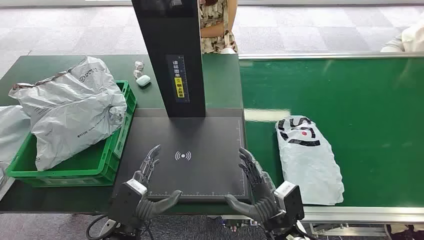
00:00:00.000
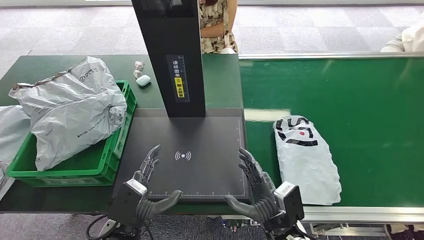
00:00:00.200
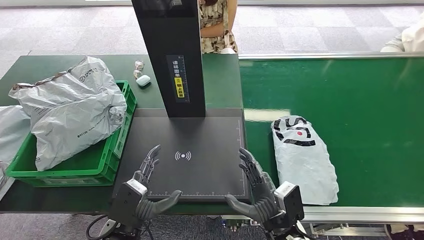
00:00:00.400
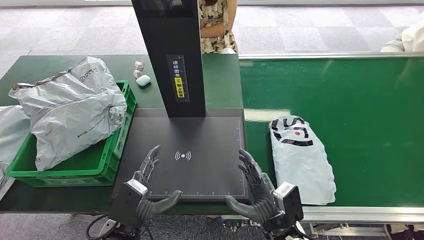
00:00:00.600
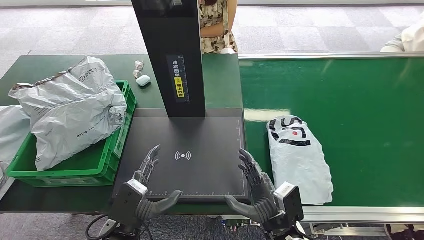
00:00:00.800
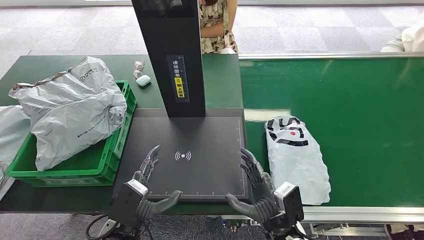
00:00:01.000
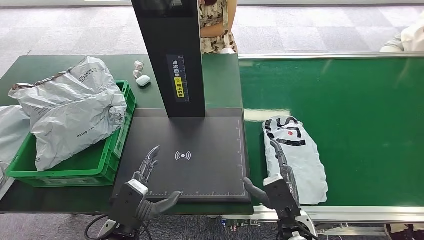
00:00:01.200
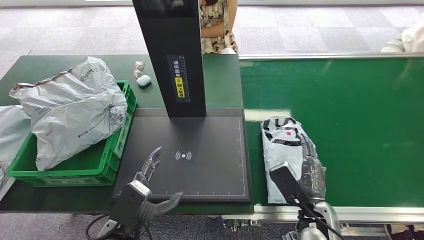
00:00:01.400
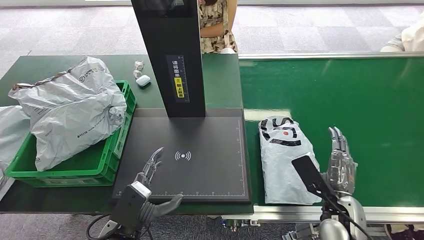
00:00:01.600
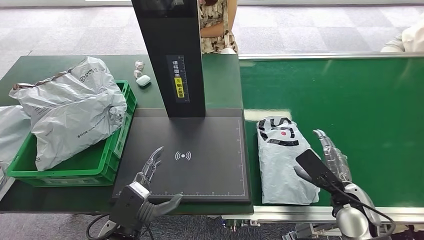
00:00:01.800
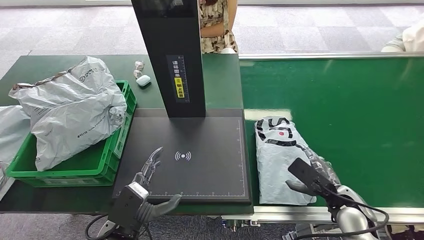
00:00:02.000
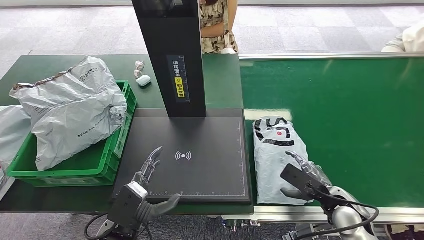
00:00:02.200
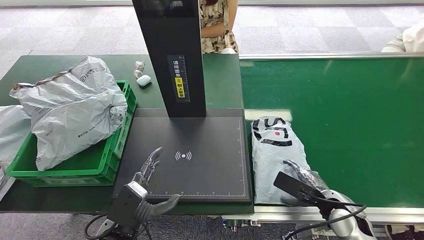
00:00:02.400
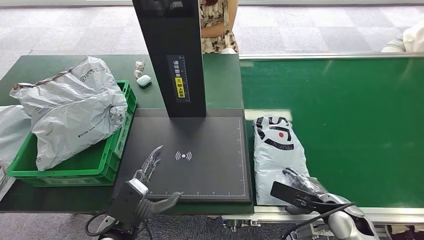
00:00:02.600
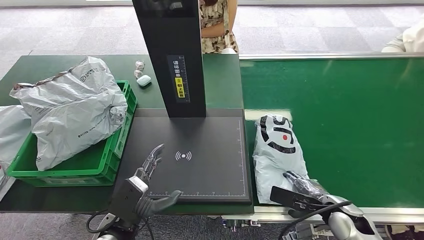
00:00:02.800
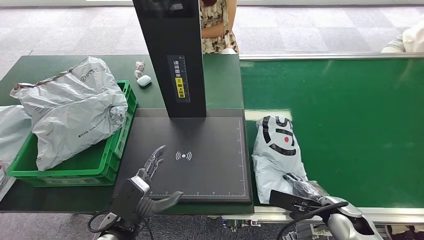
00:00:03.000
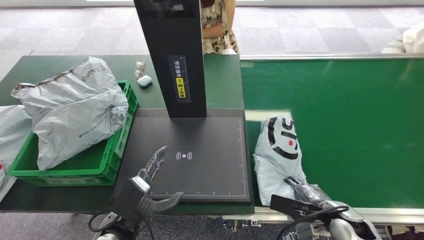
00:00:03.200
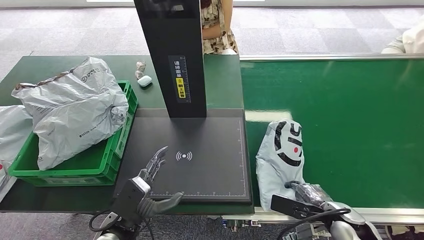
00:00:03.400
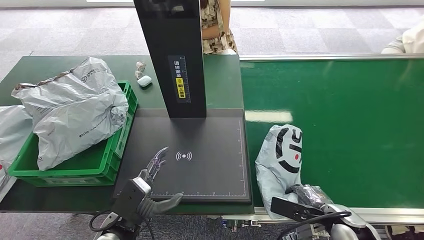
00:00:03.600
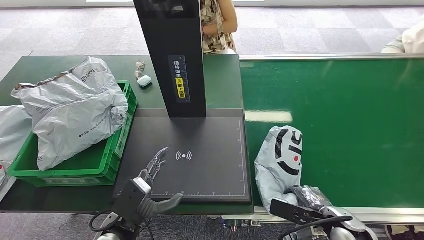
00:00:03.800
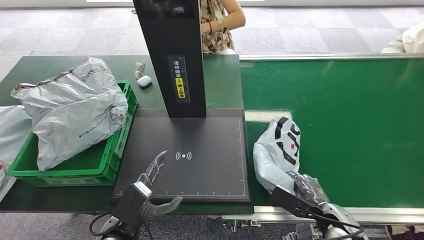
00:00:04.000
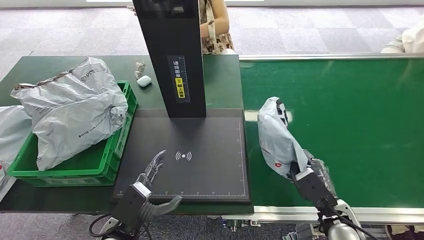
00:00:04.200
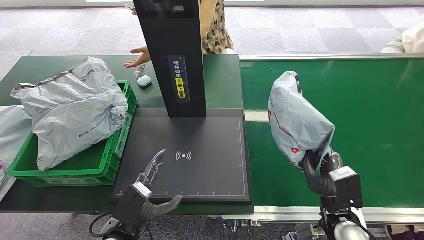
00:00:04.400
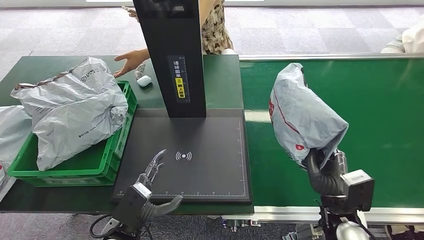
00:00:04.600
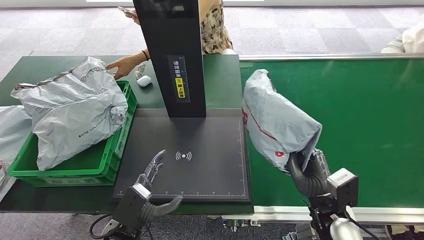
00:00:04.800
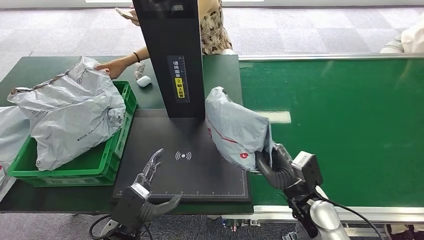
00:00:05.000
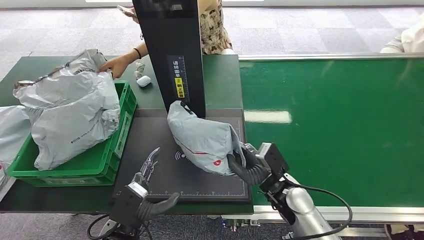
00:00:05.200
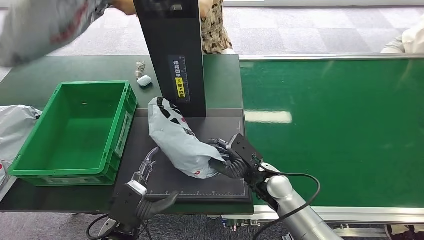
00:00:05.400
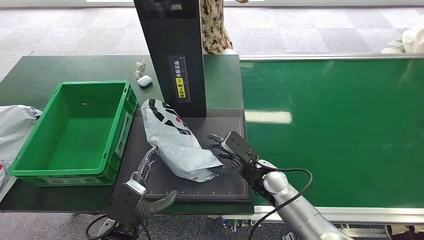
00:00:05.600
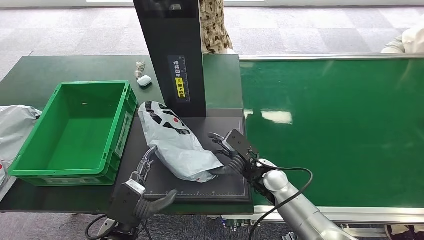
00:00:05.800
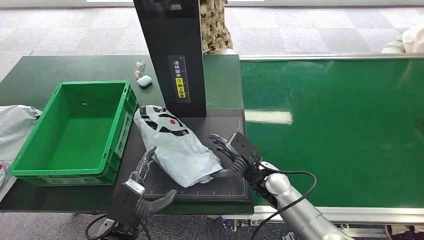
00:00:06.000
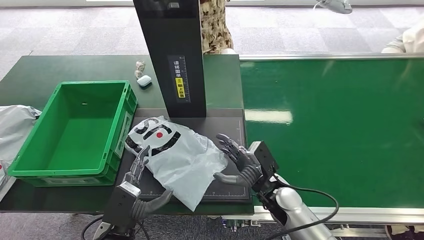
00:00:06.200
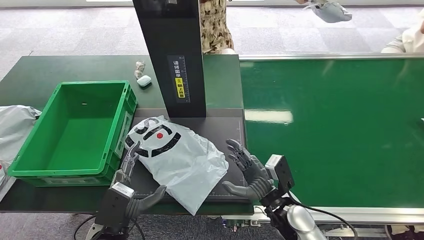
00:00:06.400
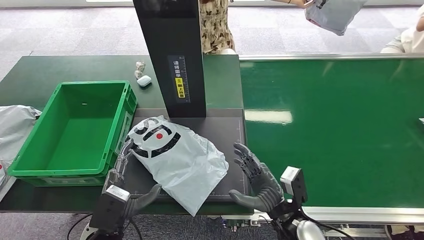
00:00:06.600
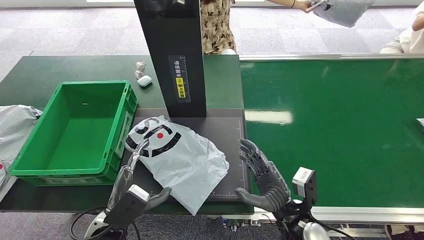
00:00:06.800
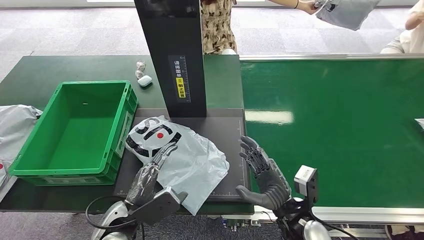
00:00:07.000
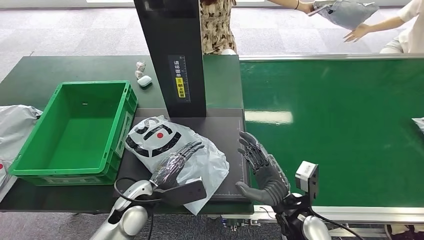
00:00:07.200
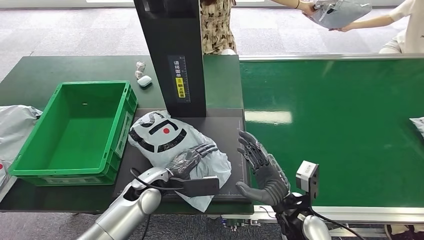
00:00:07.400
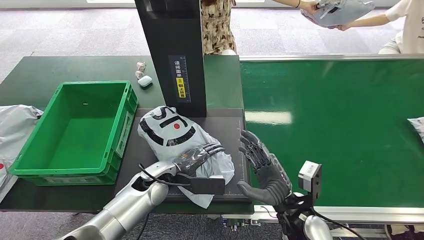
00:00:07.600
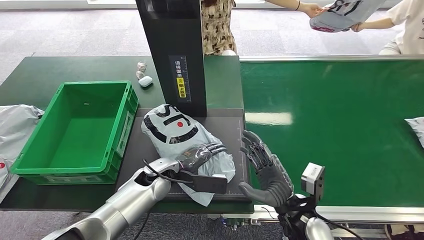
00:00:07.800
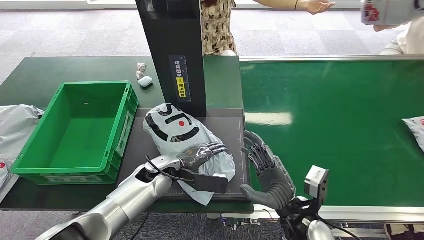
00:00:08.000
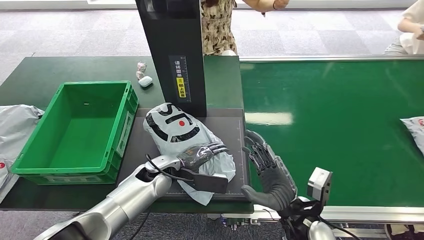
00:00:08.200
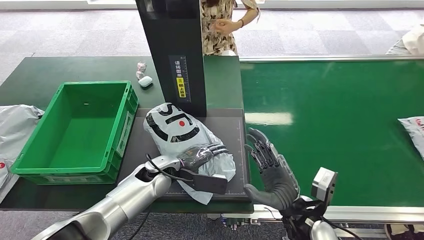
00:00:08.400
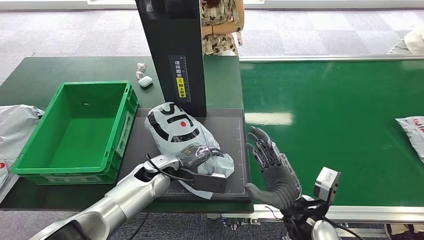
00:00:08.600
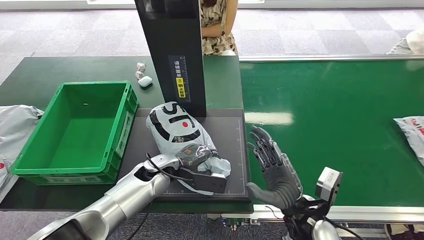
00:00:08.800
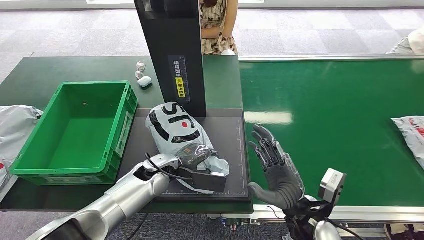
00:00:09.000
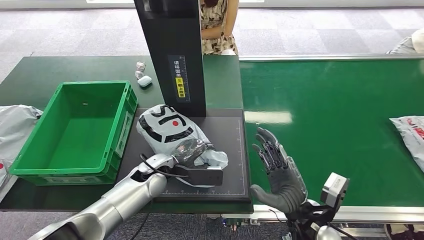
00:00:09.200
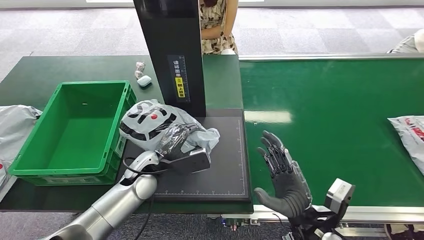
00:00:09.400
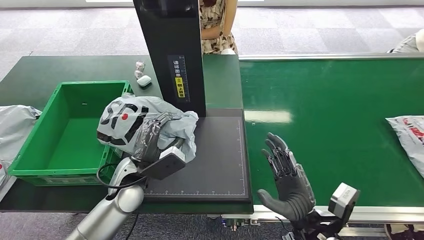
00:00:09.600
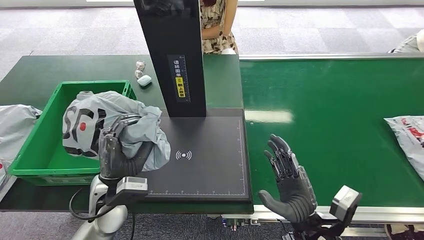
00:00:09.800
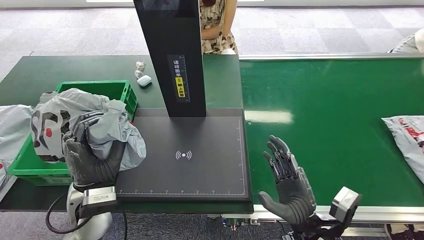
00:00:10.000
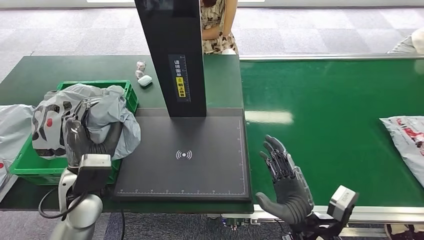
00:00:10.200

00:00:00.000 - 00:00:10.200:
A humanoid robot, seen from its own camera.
Step, 00:00:00.000 - 00:00:04.600: Pick up the package from the conveyor belt.
Step, 00:00:05.000 - 00:00:06.600: Place the package onto the inbound machine.
Step, 00:00:07.000 - 00:00:09.600: Pick up the package from the inbound machine.
00:00:01.400 - 00:00:03.000: The right hand goes roughly 10 cm to the right.
00:00:03.000 - 00:00:04.400: The right hand moves some 5 cm.
00:00:05.800 - 00:00:07.200: The right hand goes approximately 10 cm backward, while the left hand shifts about 10 cm forward.

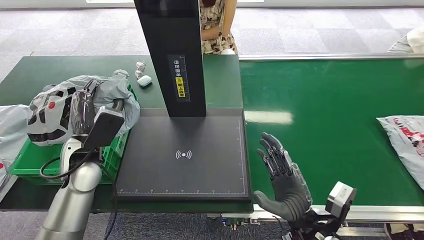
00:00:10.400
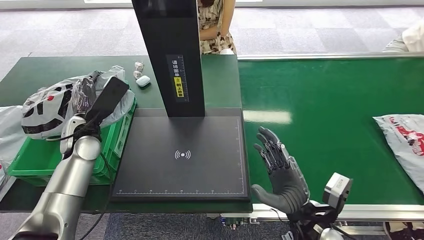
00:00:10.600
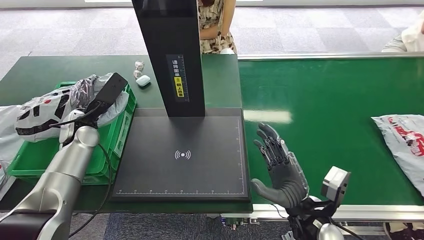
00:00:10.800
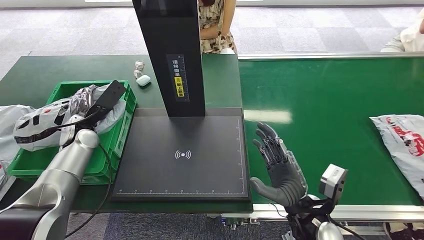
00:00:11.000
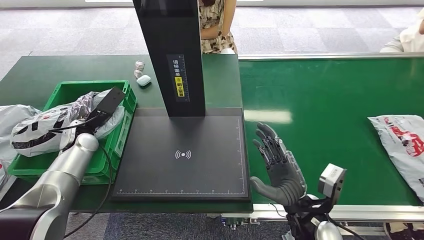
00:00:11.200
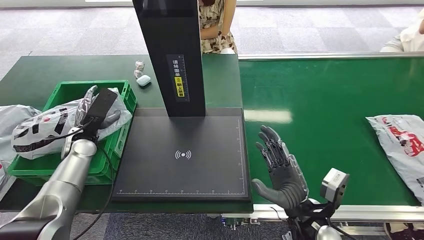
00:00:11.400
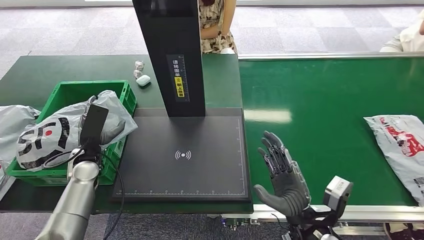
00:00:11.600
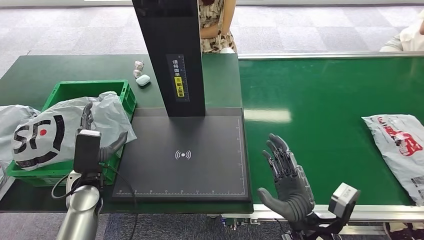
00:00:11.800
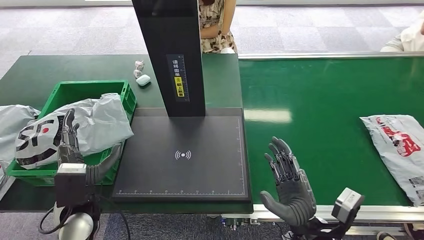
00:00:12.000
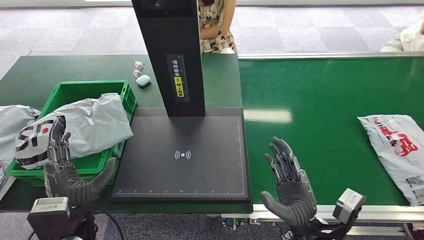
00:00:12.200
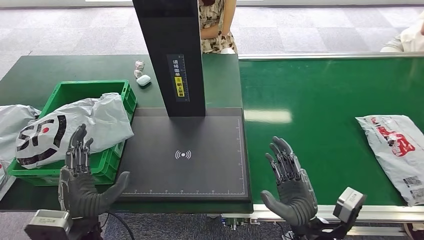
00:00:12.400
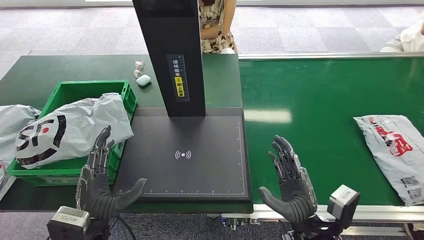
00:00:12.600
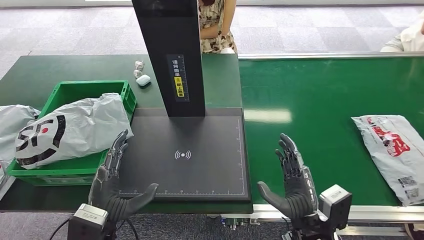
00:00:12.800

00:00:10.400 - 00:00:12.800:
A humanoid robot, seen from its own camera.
Step, 00:00:10.400 - 00:00:12.800: Place the package into the parcel locker.
00:00:10.400 - 00:00:11.600: The left hand travels downward and to the left by about 10 cm, and reaches roughly 10 cm forward, then returns.
00:00:11.600 - 00:00:12.800: The left hand is displaced backward and to the right by some 20 cm.

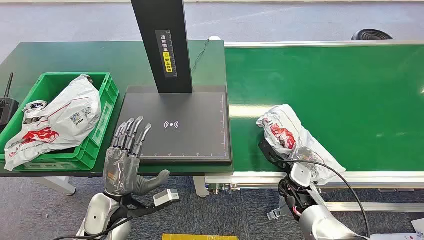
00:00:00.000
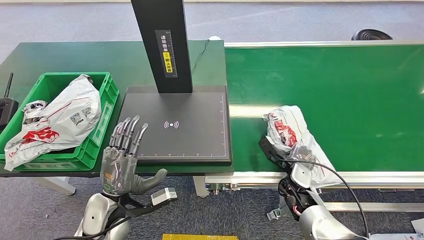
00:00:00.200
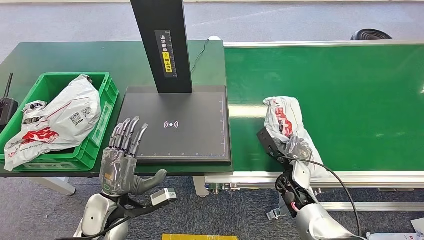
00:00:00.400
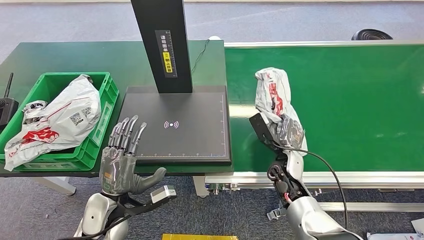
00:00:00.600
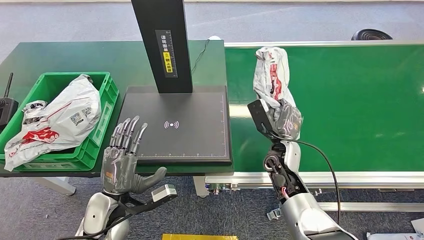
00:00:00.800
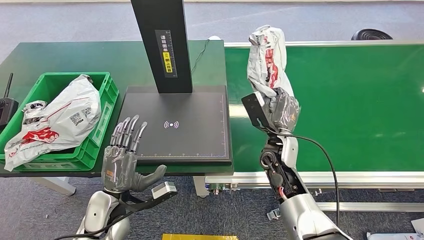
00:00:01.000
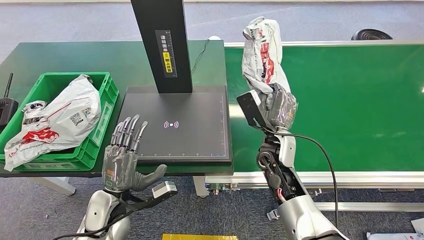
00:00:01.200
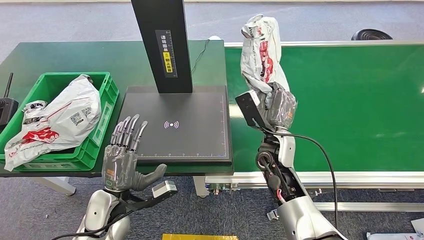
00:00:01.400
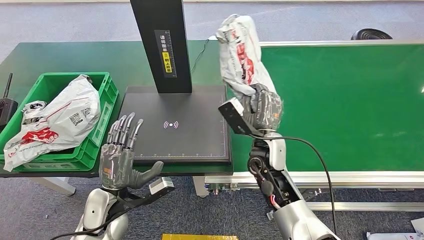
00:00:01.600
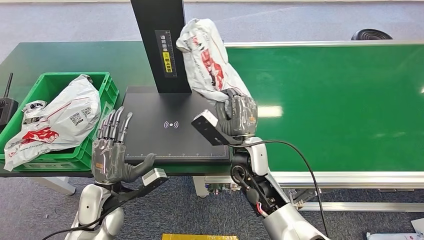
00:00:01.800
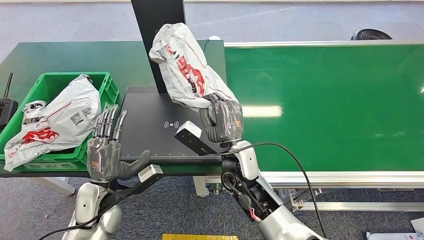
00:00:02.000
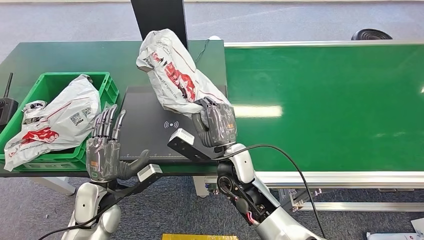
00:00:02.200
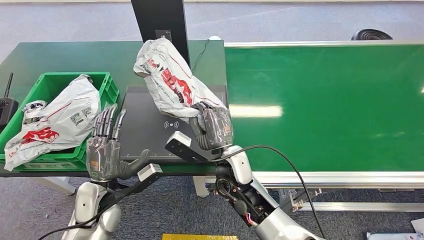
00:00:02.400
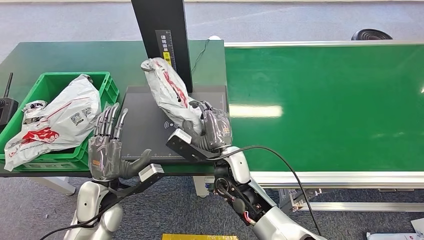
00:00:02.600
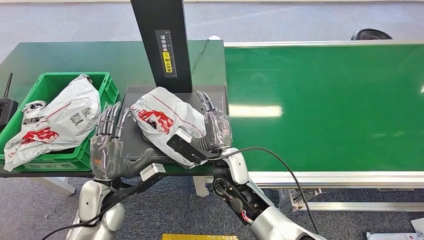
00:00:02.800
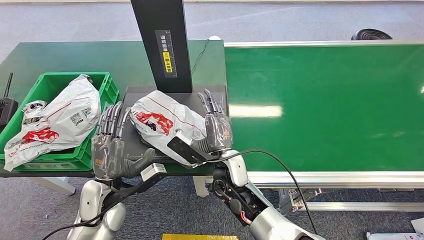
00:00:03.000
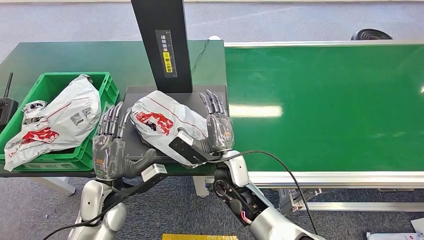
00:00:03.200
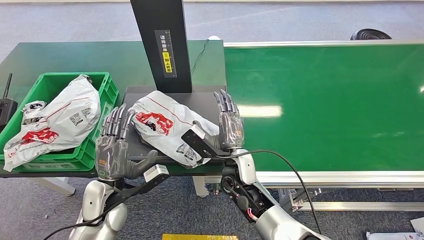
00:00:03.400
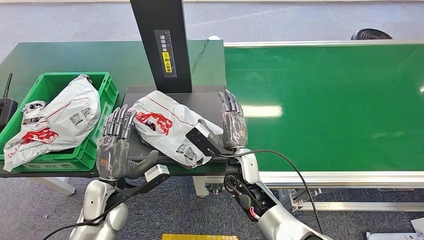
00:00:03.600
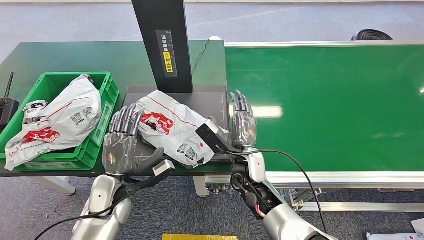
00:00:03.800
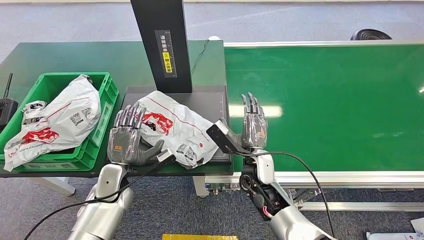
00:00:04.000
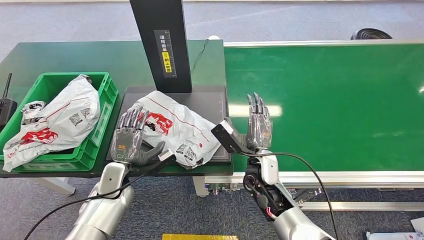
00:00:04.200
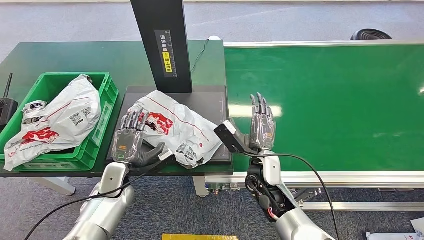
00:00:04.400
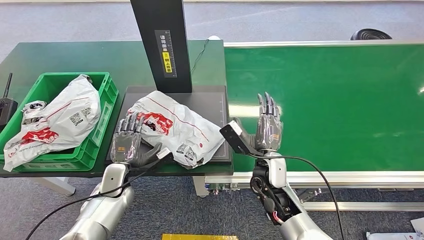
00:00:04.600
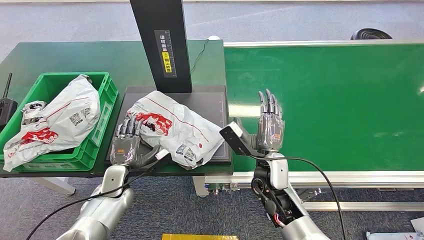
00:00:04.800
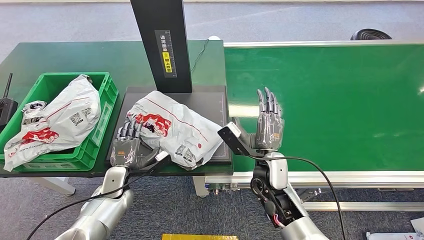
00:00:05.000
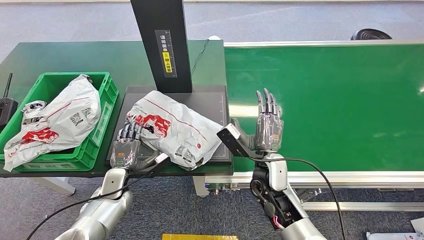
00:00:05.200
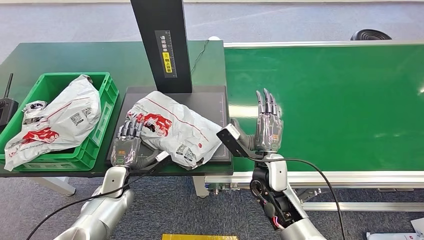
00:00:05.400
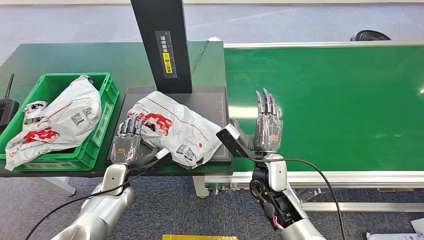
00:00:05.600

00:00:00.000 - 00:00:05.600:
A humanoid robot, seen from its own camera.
Step, 00:00:00.000 - 00:00:00.800: Pick up the package from the conveyor belt.
Step, 00:00:01.200 - 00:00:03.400: Place the package onto the inbound machine.
Step, 00:00:03.600 - 00:00:05.600: Pick up the package from the inbound machine.
00:00:02.800 - 00:00:04.200: The left hand goes approximately 5 cm forward. Meanwhile the right hand is displaced to the right by about 10 cm.
00:00:04.200 - 00:00:05.600: The hands move only a little.
